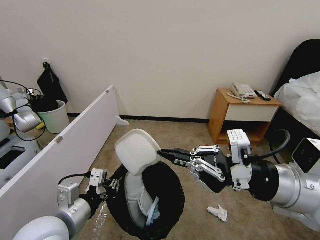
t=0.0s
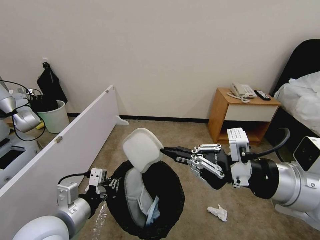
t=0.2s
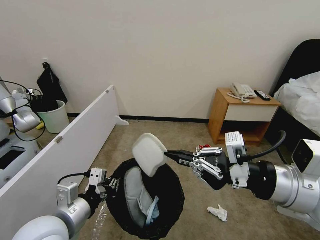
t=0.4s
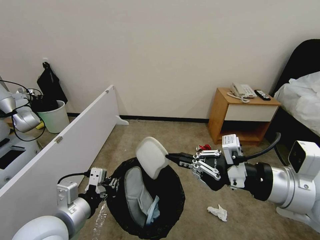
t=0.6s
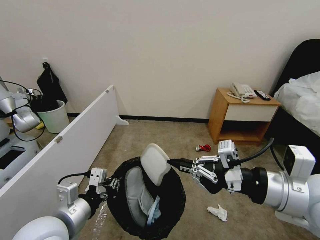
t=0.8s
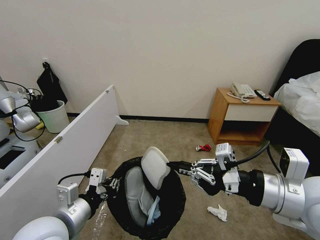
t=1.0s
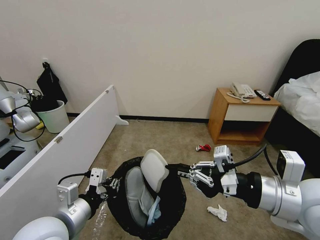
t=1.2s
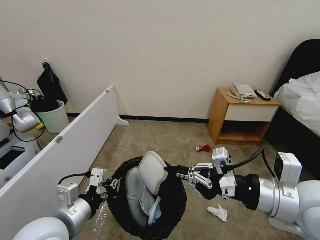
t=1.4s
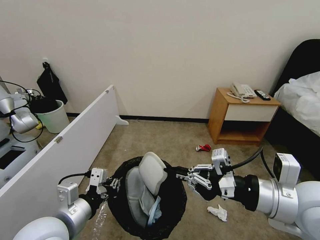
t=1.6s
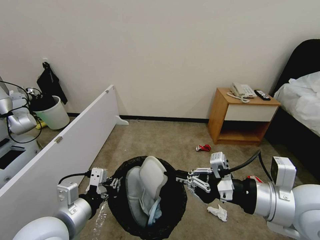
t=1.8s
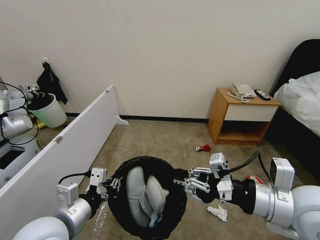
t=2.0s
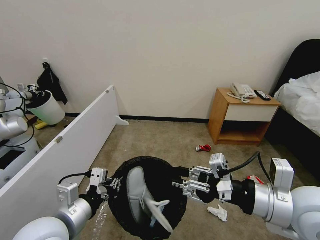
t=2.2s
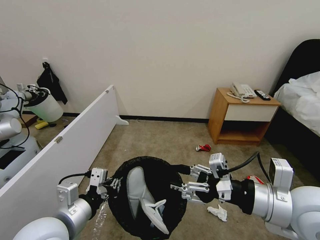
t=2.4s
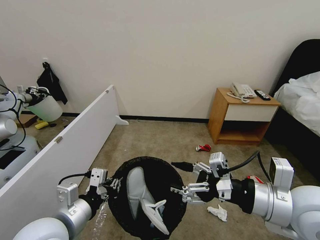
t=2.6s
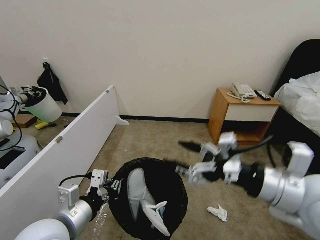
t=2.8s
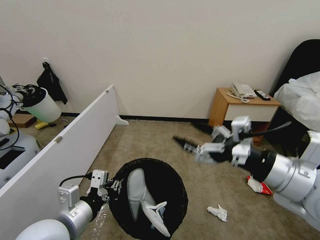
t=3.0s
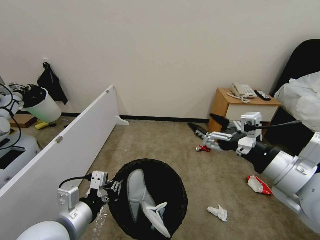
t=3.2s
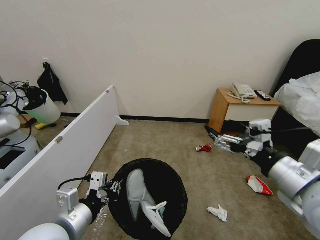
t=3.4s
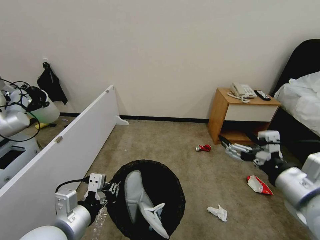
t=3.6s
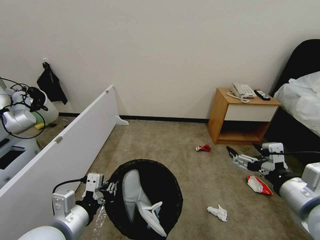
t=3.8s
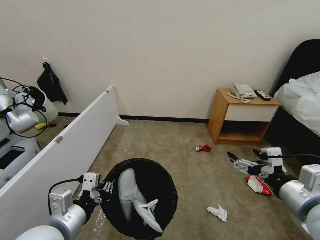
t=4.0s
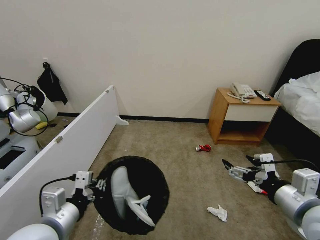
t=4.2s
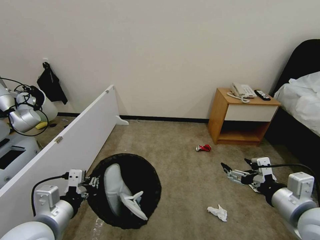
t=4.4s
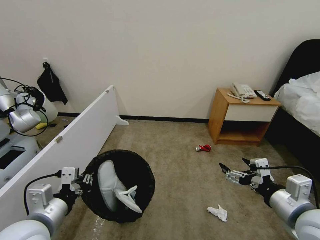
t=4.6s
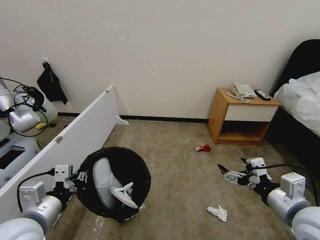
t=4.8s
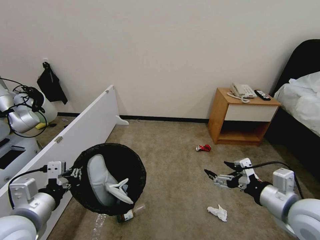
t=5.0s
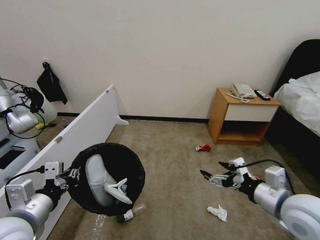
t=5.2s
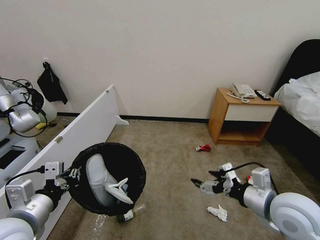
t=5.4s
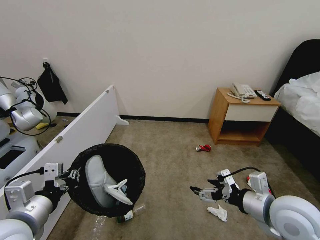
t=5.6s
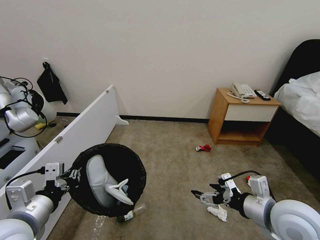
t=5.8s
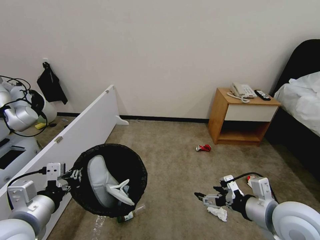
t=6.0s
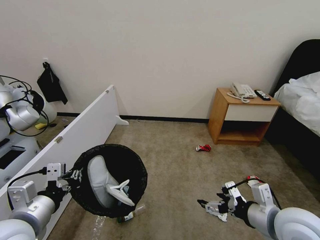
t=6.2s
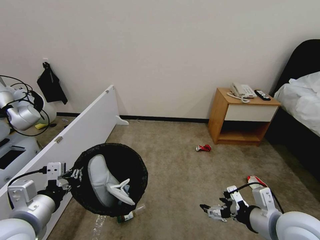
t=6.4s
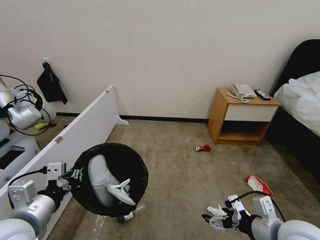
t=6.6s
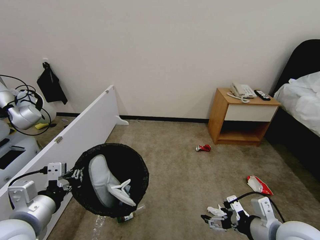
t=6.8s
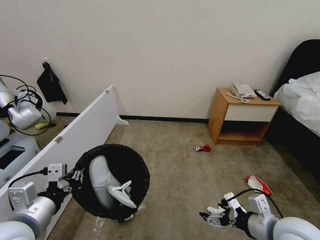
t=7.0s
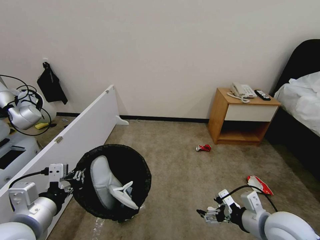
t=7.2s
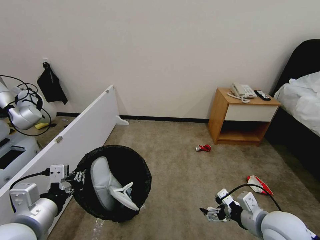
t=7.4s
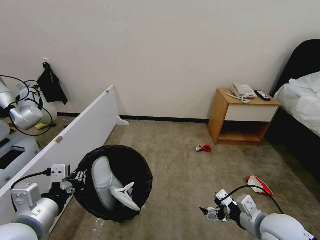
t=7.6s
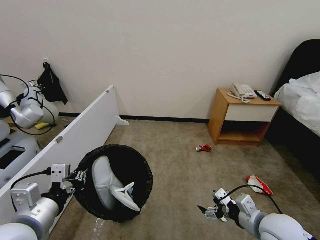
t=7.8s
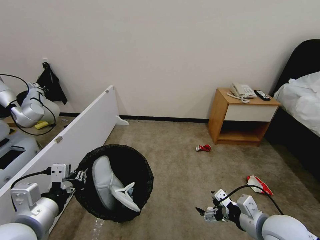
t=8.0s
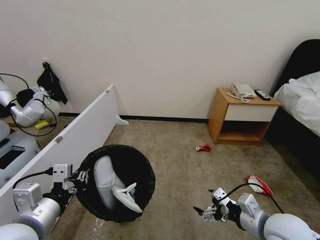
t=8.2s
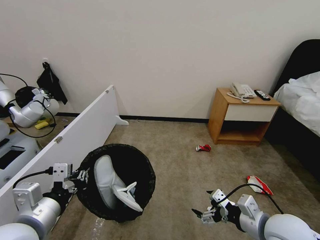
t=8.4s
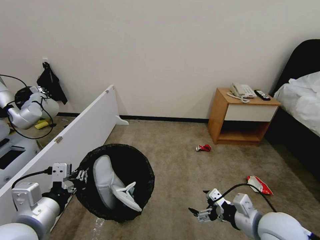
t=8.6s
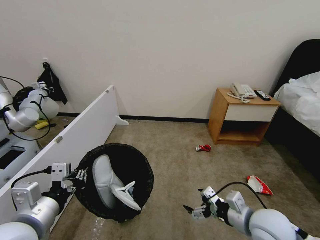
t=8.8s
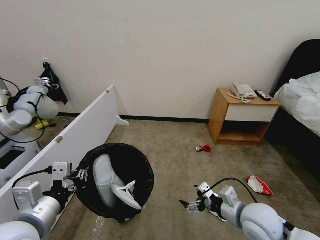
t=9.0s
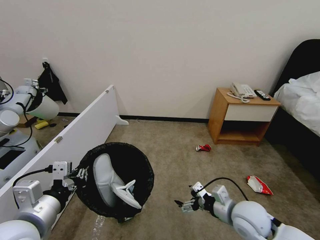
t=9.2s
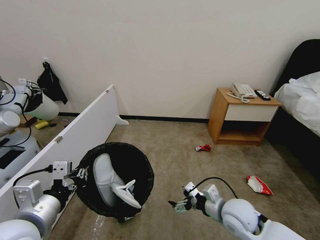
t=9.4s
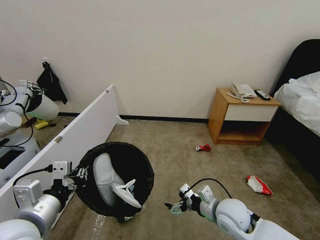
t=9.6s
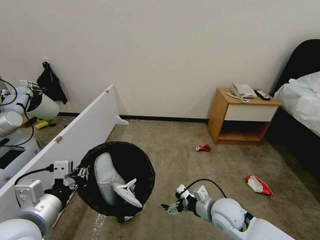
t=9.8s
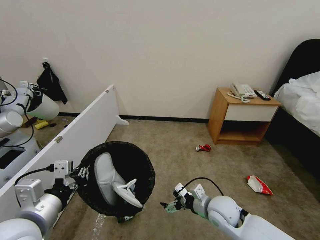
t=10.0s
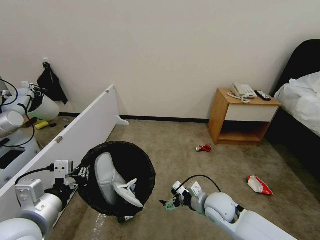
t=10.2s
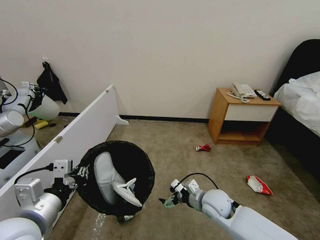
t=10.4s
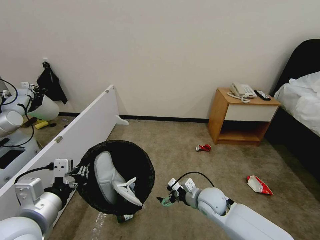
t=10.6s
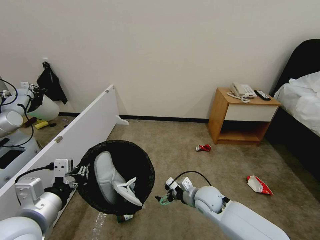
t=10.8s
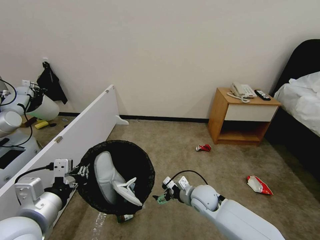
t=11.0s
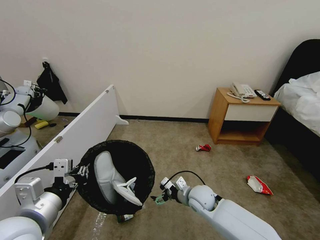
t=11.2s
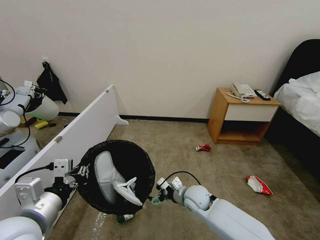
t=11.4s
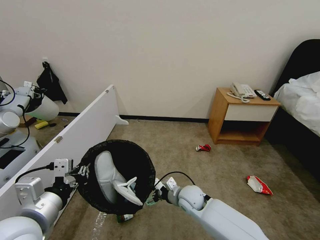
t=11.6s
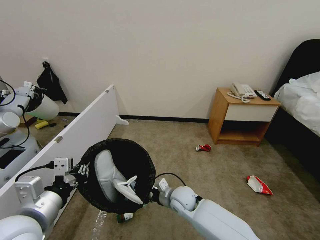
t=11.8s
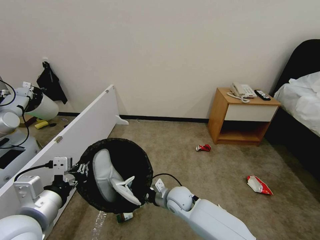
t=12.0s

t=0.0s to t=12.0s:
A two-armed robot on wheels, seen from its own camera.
Task of the whole recording: Pick up the trash bin, then pick up the garbage from the floor and place it into the trash bin.
t=0.0s to t=1.6s: There are only small adjustments of the grippers.
t=1.6s to t=3.0s: The right gripper opens its fingers.
t=3.0s to t=4.4s: The right gripper travels downward by roughly 10 cm.
t=6.0s to t=7.6s: The right gripper shifts approximately 10 cm downward.
t=7.6s to t=9.0s: The grippers make only small movements.
t=9.0s to t=10.4s: The right gripper goes roughly 15 cm forward, to the left and downward.
t=10.4s to t=12.0s: The right gripper is displaced to the left by approximately 10 cm.

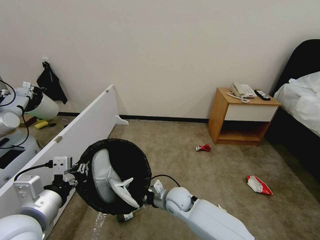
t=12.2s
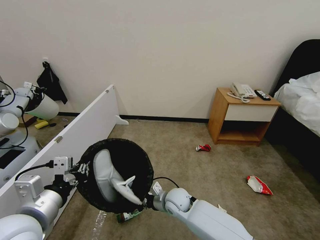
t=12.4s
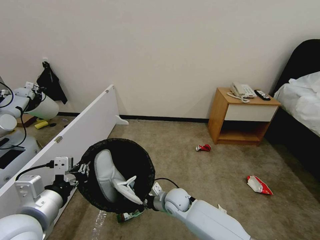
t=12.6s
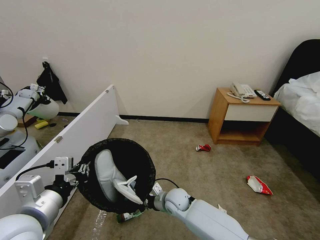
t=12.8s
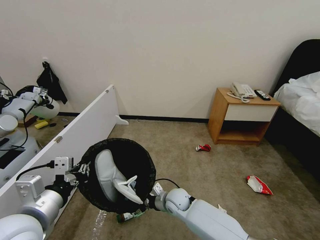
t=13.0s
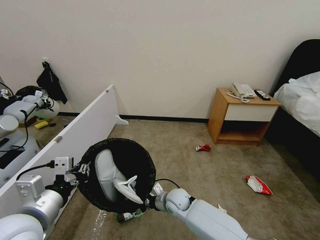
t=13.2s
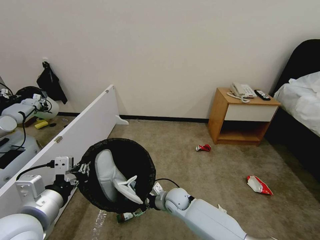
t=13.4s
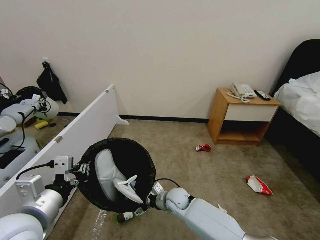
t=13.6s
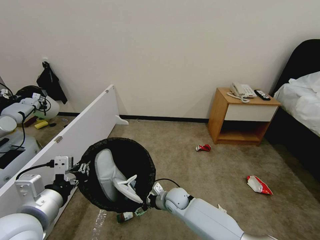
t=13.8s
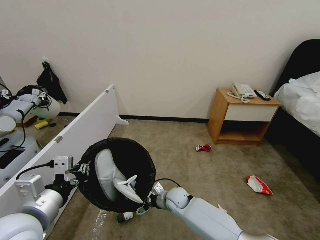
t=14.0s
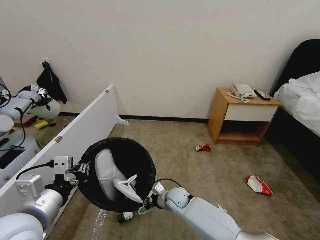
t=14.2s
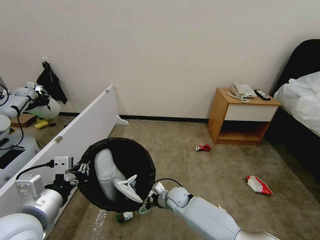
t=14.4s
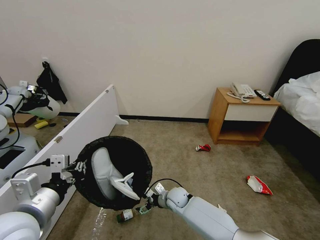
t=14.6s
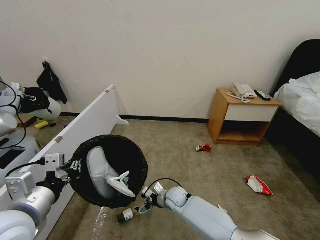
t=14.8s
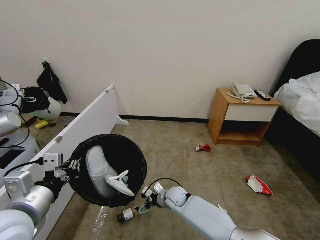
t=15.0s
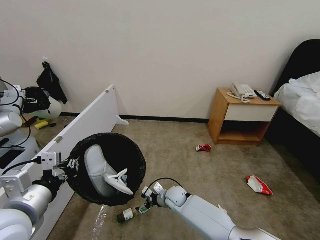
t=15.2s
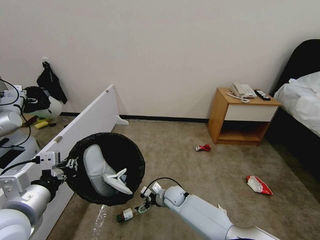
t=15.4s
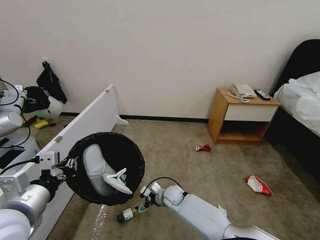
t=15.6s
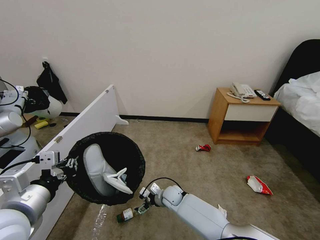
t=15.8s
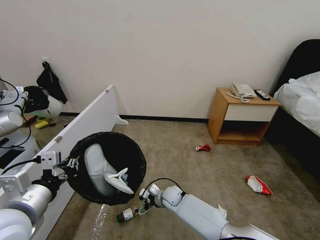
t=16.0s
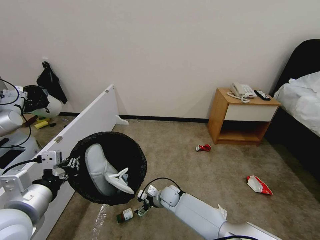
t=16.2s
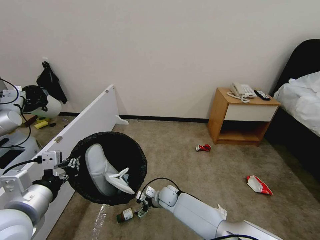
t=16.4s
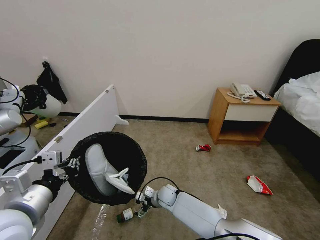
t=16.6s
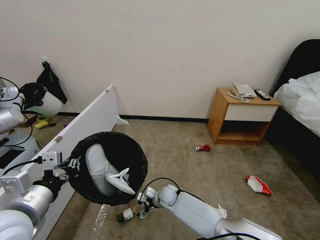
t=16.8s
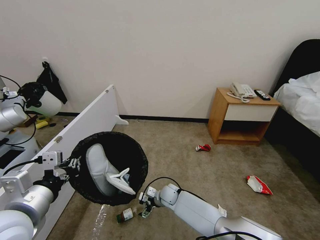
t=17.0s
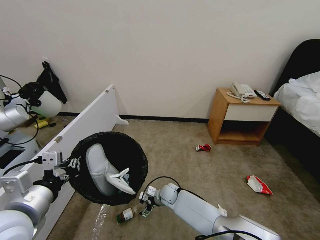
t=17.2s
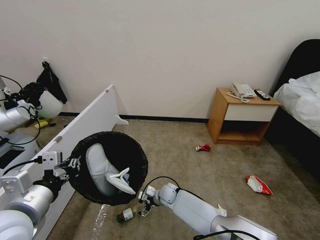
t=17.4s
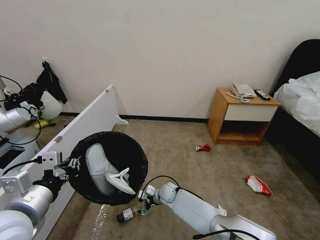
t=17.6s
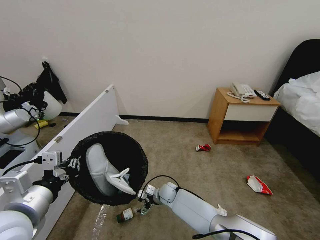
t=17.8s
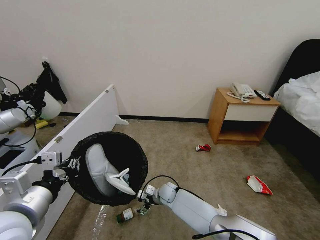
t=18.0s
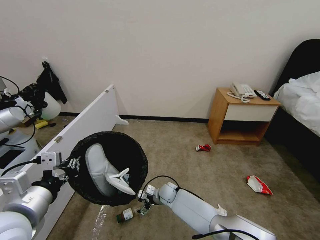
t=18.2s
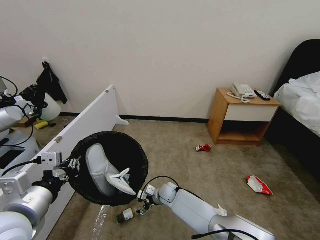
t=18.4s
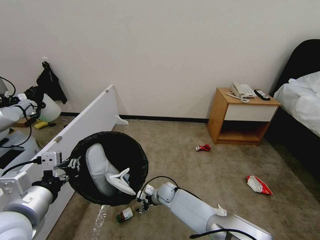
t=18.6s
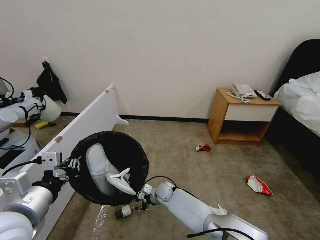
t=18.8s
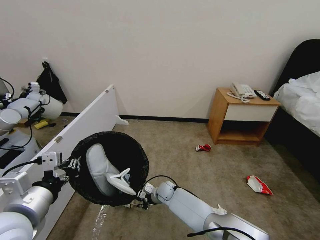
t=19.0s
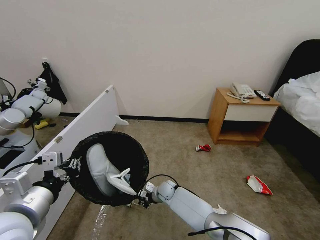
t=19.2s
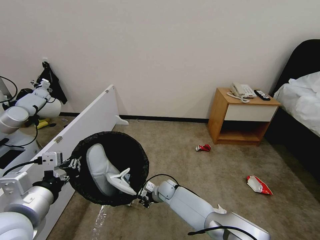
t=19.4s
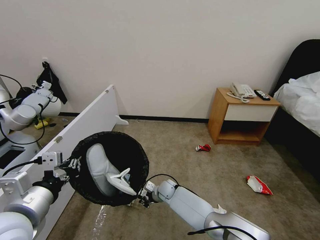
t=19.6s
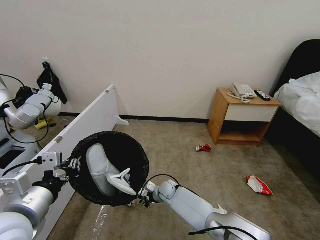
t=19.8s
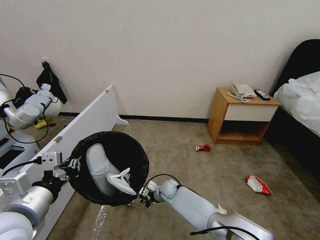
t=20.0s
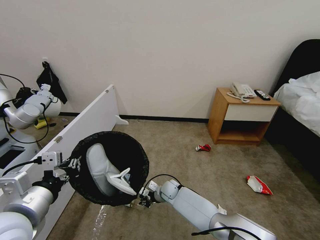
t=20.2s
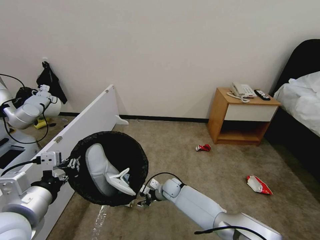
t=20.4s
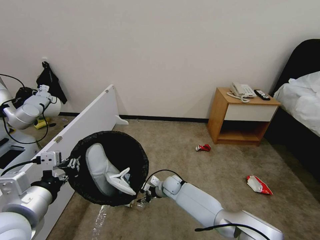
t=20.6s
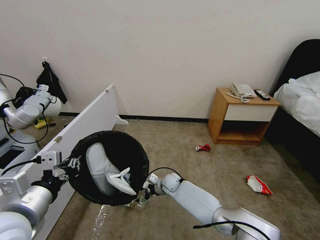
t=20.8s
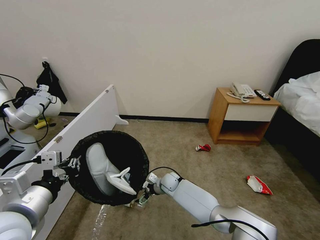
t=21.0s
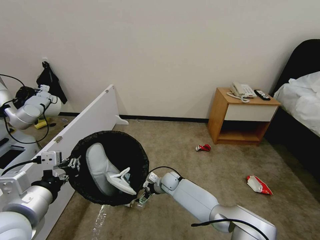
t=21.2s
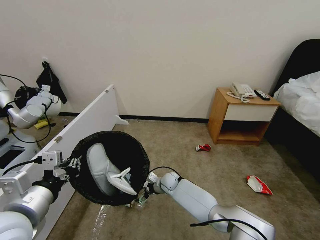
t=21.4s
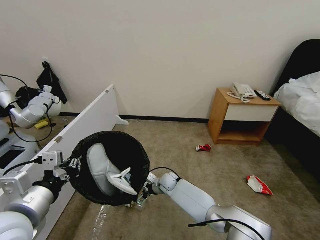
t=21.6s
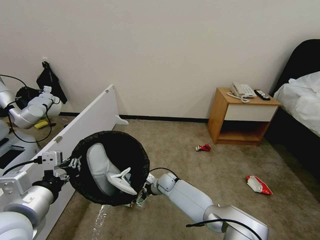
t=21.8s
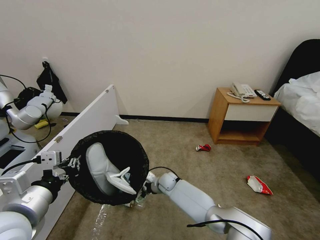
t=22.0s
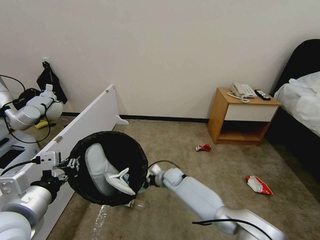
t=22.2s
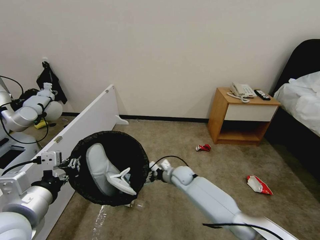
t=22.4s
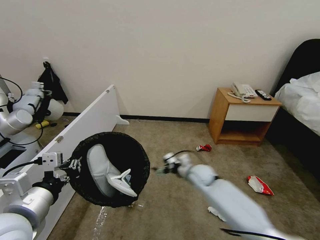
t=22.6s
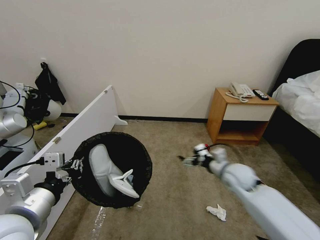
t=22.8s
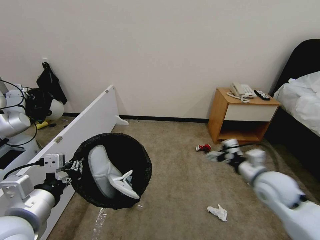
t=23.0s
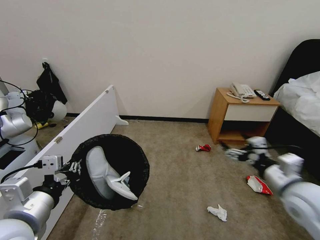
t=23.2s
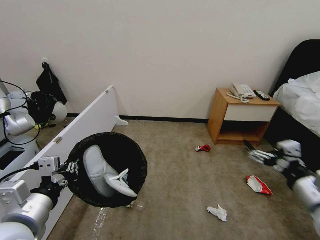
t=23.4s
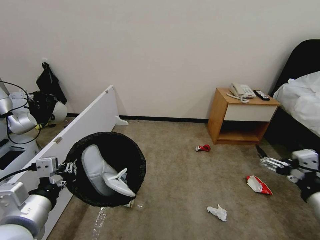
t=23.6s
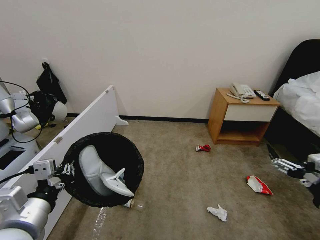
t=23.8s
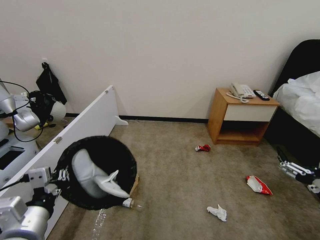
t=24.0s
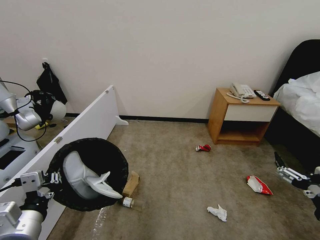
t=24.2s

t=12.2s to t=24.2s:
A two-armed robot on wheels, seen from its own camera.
Task of the whole recording: Pick up the trash bin, then pick up the garbage from the floor and place it into the trash bin.
t=12.2s to t=13.8s: The right gripper shifts by roughly 5 cm.
t=13.8s to t=15.2s: The grippers move only a little.
t=15.2s to t=18.2s: The grippers make only small movements.
t=18.2s to t=19.8s: The right gripper closes up.
t=19.8s to t=21.2s: The right gripper opens its fingers.
t=21.2s to t=22.6s: The right gripper is displaced to the right and upward by about 15 cm.
t=22.6s to t=24.2s: The left gripper goes roughly 5 cm downward; the right gripper shifts some 40 cm backward, to the right and upward.
